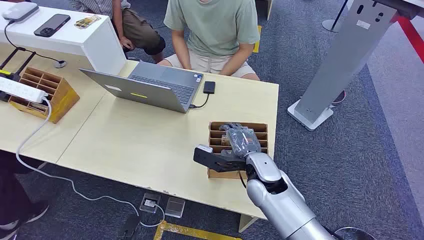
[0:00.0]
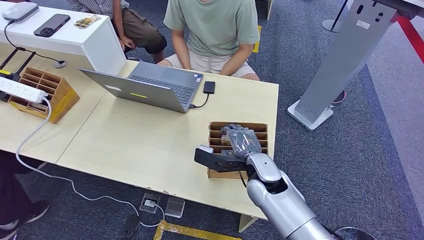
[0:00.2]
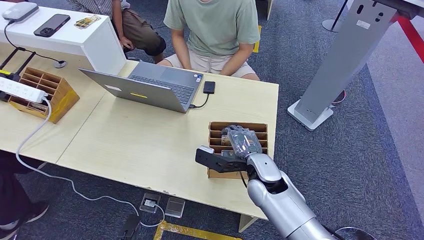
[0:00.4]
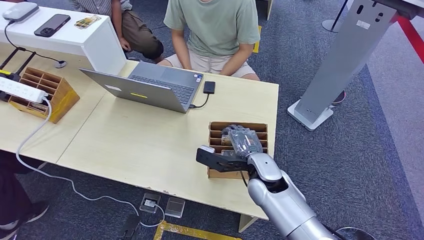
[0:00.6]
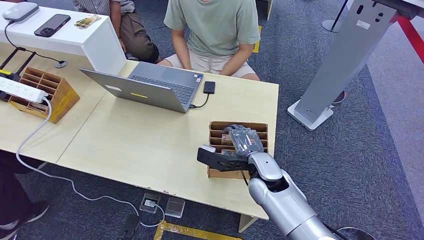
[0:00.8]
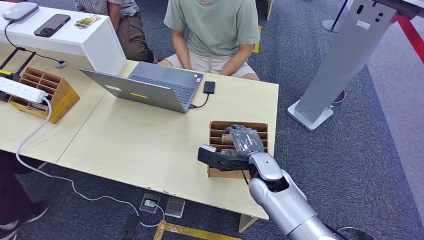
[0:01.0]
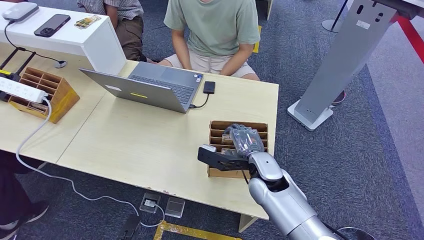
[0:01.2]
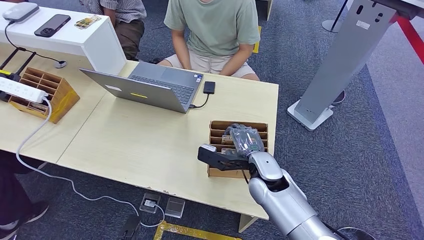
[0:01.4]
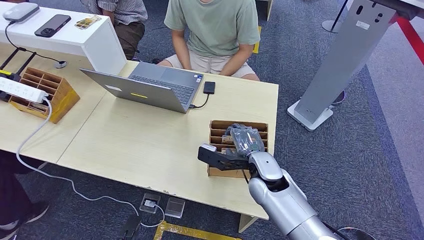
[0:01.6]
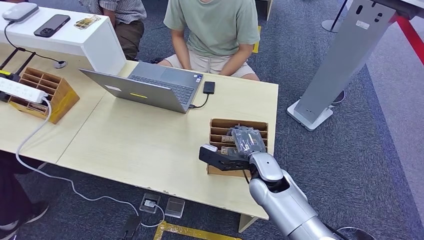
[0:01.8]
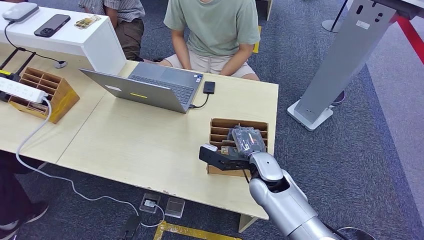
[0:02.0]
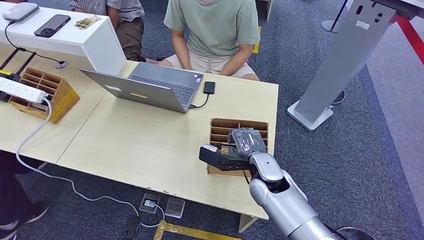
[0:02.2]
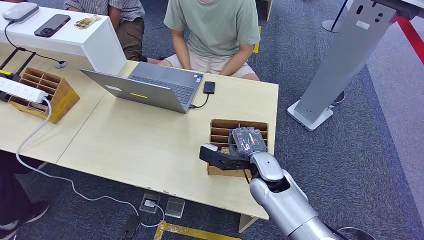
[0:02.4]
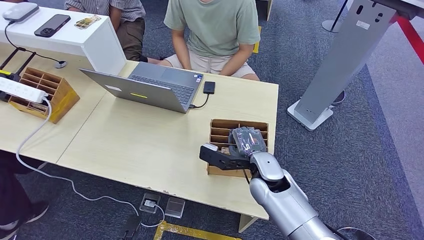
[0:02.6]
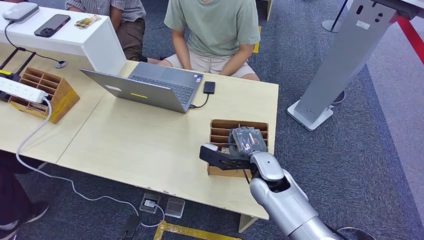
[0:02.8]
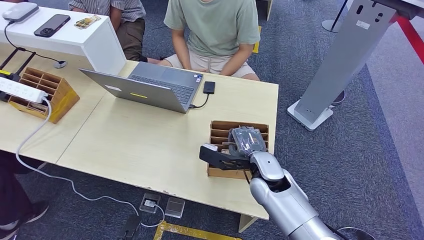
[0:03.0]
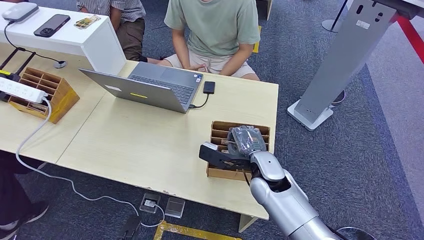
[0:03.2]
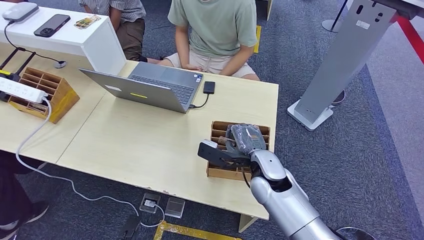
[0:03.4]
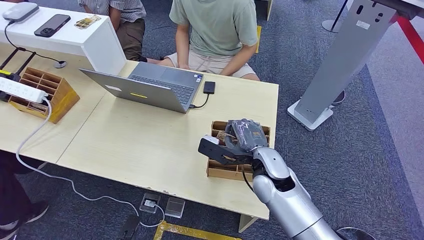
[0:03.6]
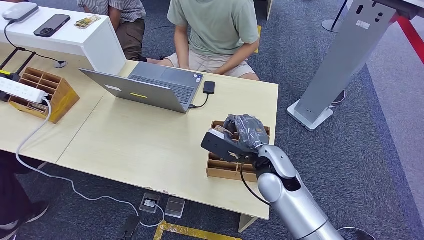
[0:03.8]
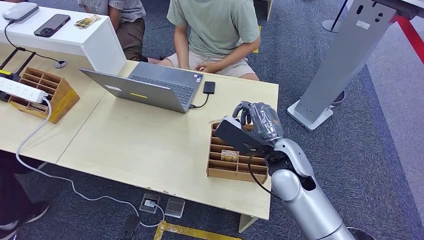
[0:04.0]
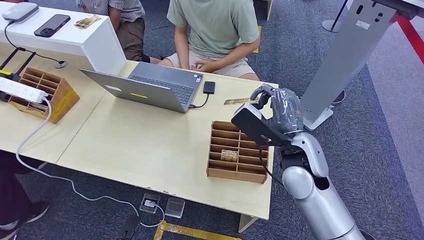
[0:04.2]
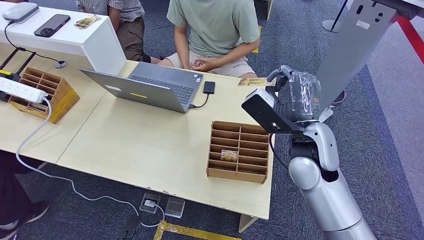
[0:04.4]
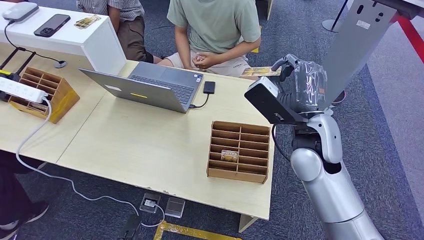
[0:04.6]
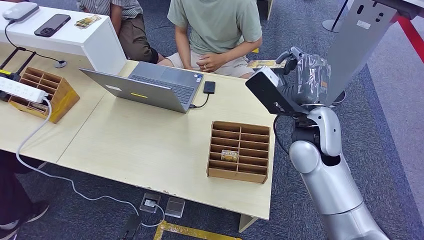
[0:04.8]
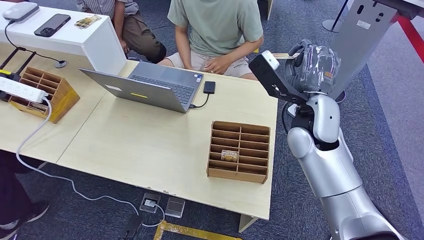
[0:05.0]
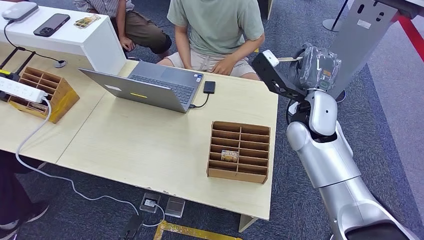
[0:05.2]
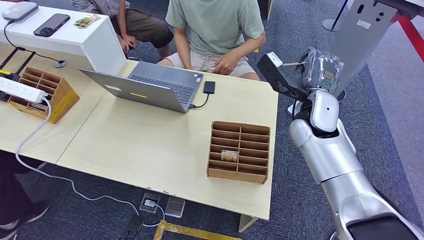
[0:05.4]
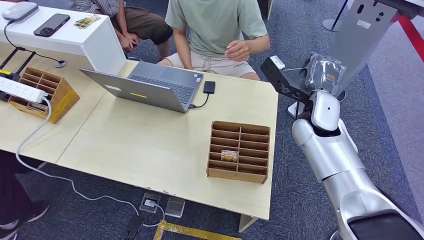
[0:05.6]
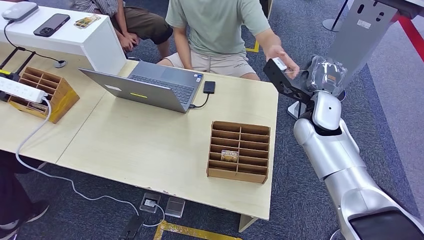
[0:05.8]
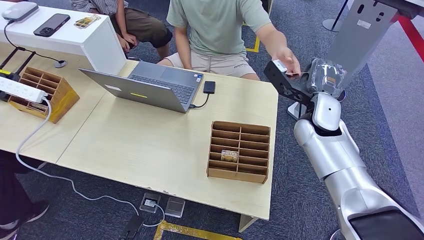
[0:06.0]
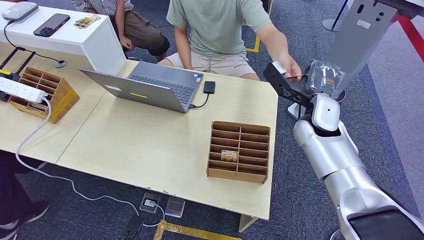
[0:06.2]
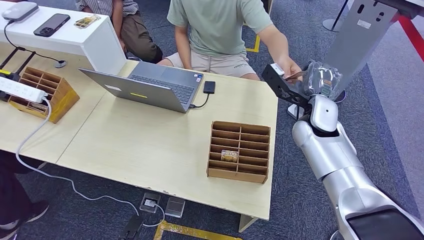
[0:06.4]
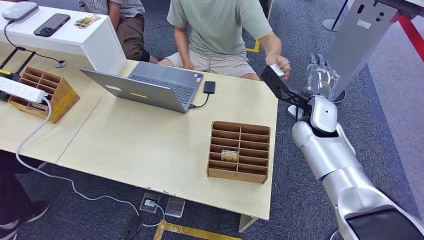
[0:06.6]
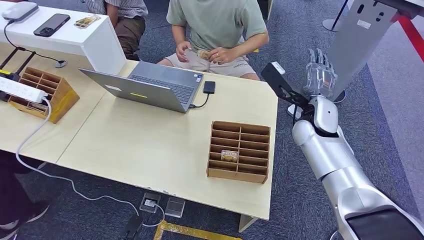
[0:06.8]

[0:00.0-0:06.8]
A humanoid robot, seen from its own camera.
Step, 0:00.0 to 0:03.6: Pick up the key card from the card box.
Step, 0:05.4 to 0:06.6: Hand the key card to the target.
0:01.4 to 0:02.8: The two hands keep their place.
0:02.8 to 0:04.0: The right hand goes approximately 10 cm upward.
0:04.0 to 0:05.4: The right hand shifts some 10 cm forward and upward.
0:05.4 to 0:06.8: The hands move only a little.
